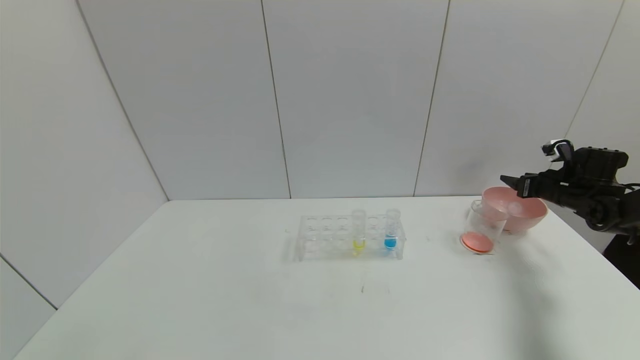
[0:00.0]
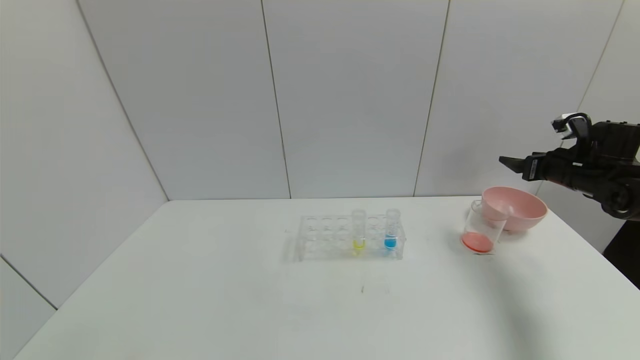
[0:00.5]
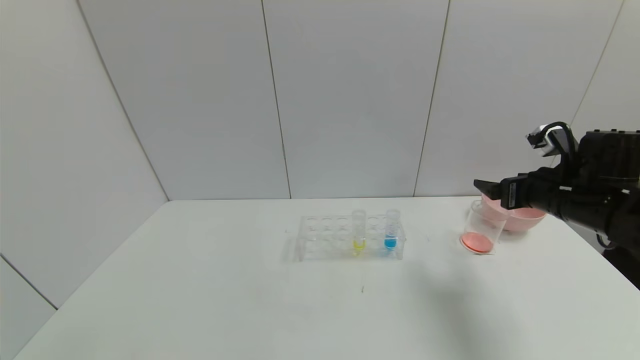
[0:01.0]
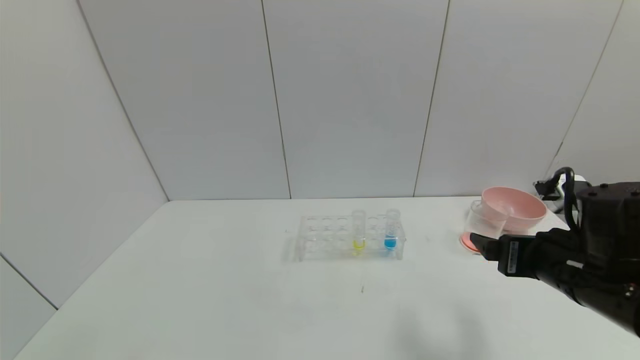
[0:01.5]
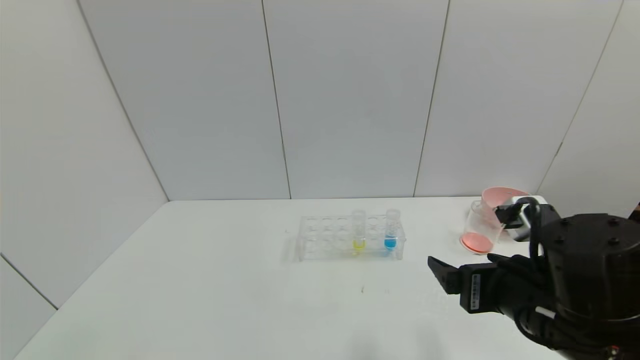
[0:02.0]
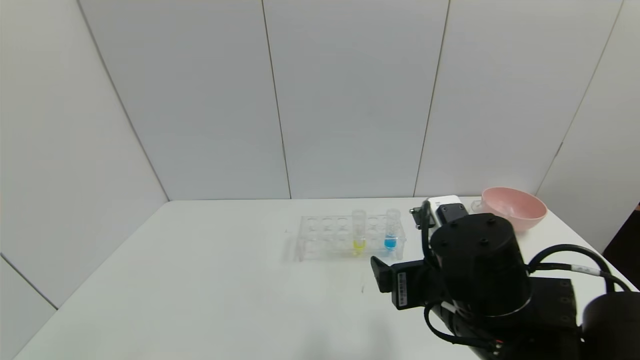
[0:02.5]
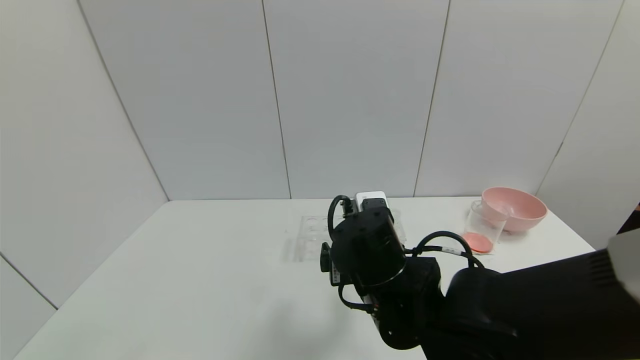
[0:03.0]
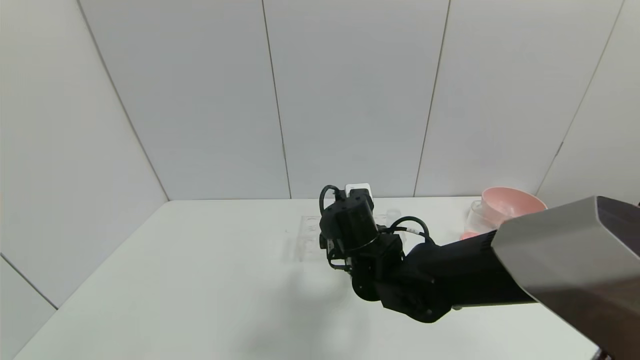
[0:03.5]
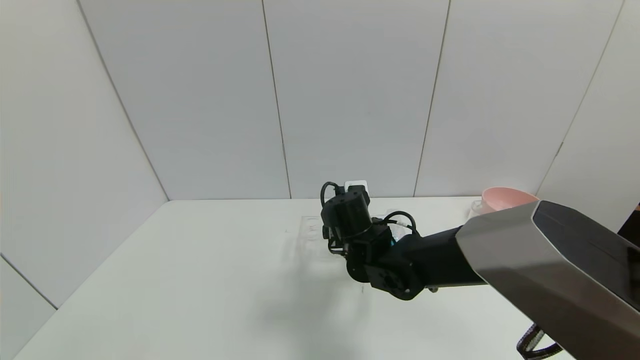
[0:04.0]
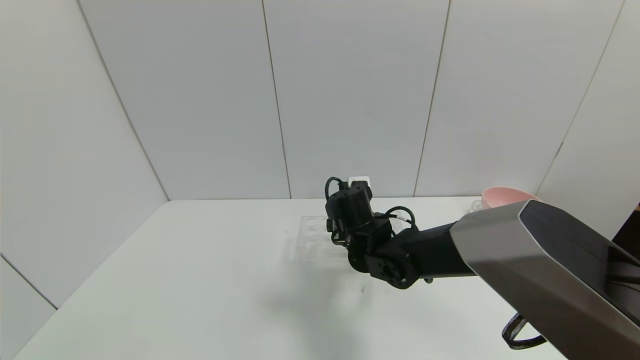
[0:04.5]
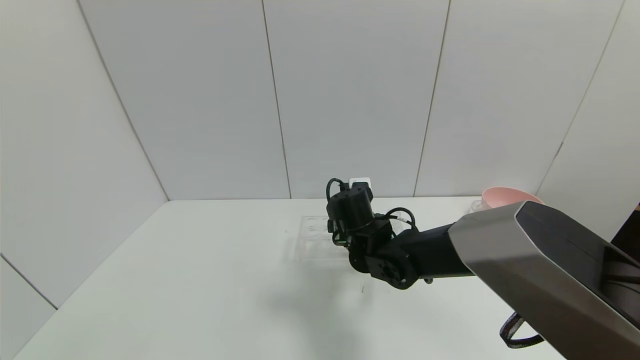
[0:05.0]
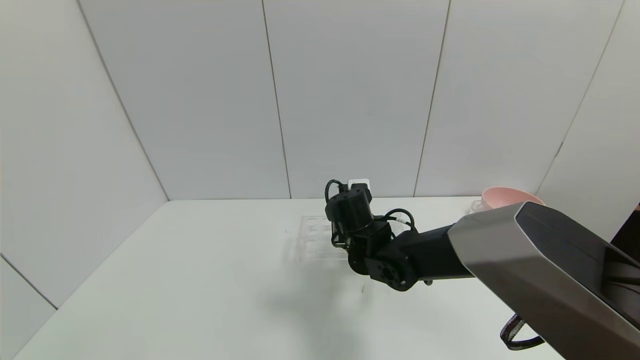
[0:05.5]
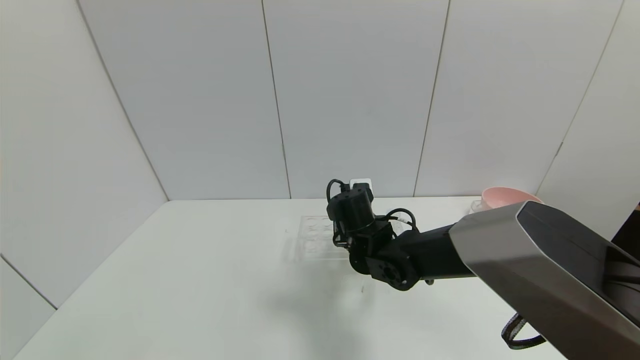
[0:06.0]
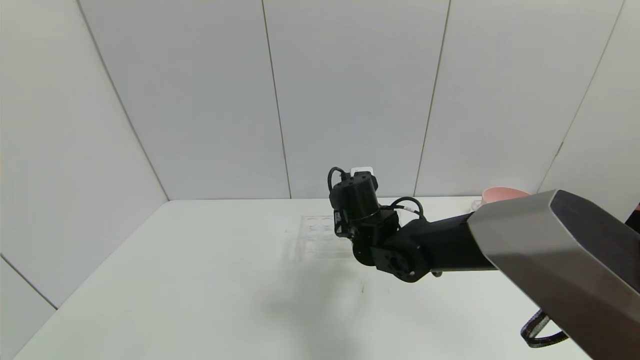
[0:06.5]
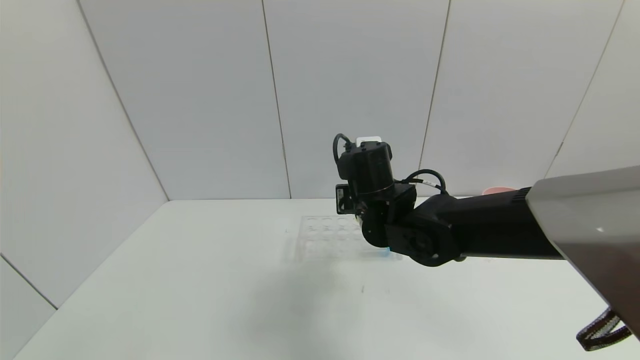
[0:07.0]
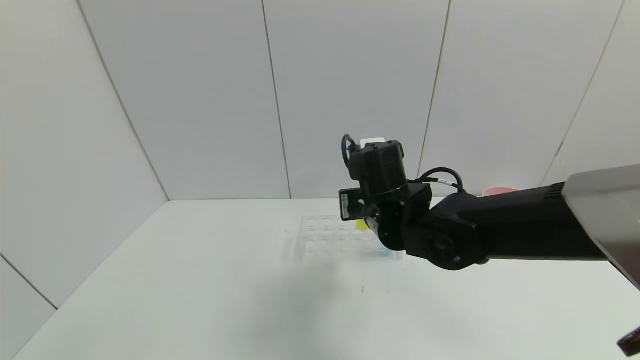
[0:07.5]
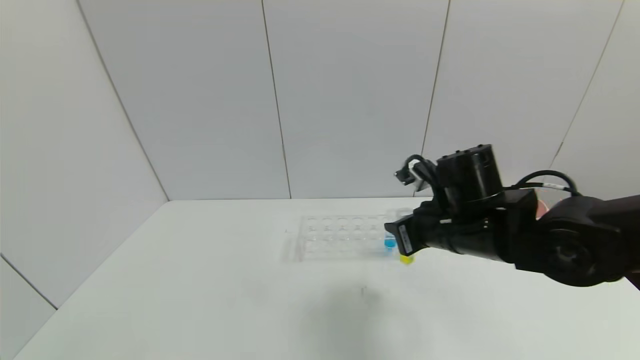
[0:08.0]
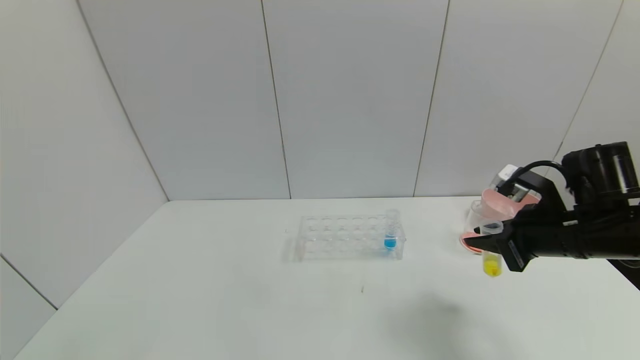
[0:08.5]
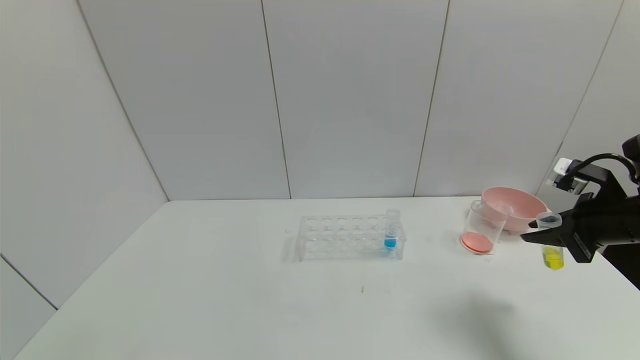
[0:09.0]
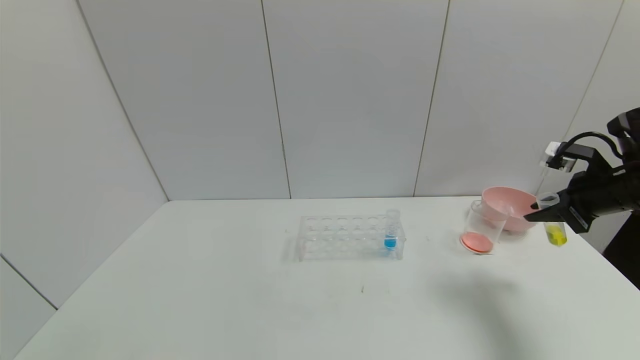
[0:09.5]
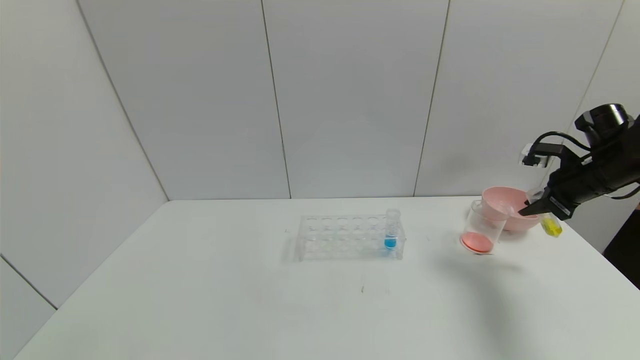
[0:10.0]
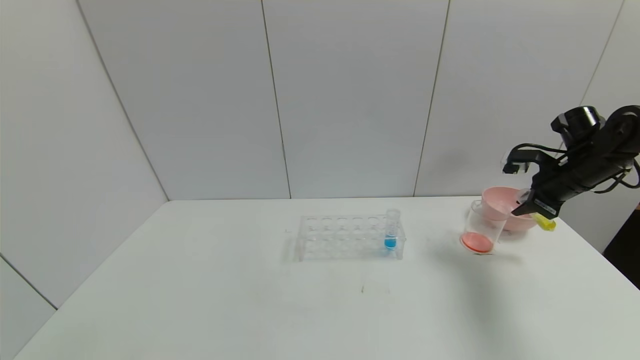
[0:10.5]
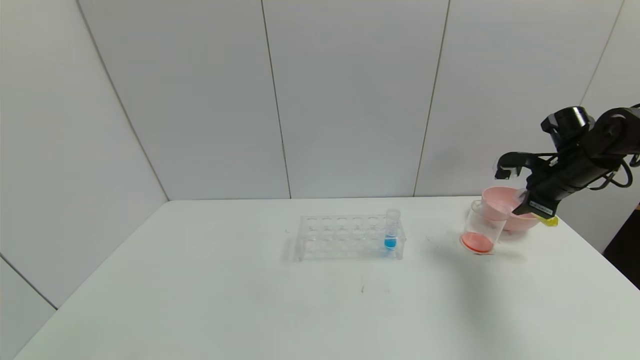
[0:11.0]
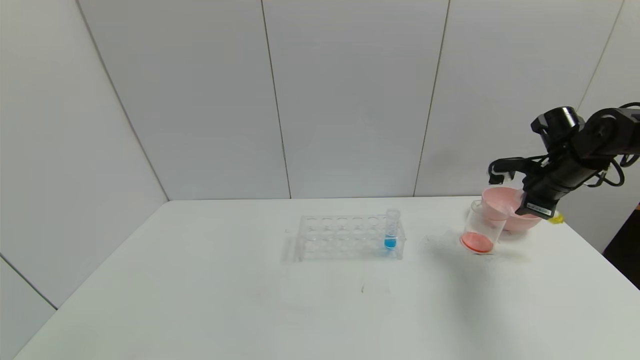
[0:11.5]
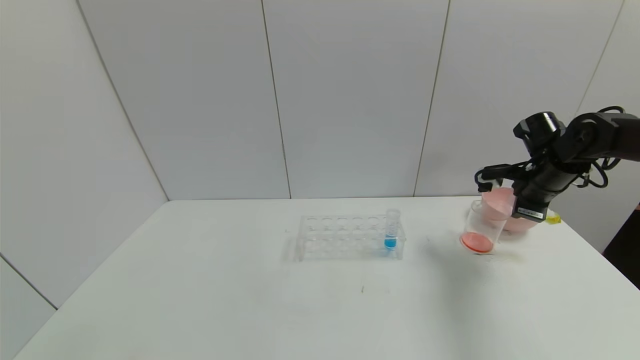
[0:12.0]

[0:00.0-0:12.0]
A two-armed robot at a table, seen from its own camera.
Task of the whole recording: pick up the test tube with yellow pigment and the test tube with red pigment by grippers and pour them into the beaker.
Step, 0:00.5 to 0:06.0: Grasp the yellow reagent with the right gripper.
0:00.0 to 0:02.0: The right gripper is displaced to the left and backward by roughly 40 cm, and opens up.
0:02.0 to 0:04.0: The right gripper heads forward, to the left and downward, covering about 25 cm.
0:04.0 to 0:06.0: The right gripper closes.
0:06.0 to 0:08.0: The right gripper is displaced to the right, upward and backward by some 20 cm.
0:08.0 to 0:10.0: The right gripper shifts roughly 25 cm to the right.
0:10.0 to 0:12.0: The right gripper goes about 5 cm to the left.

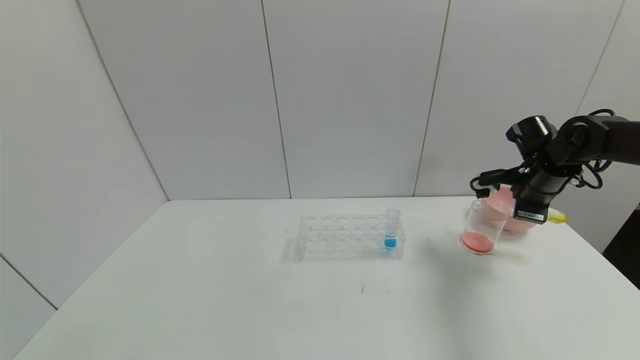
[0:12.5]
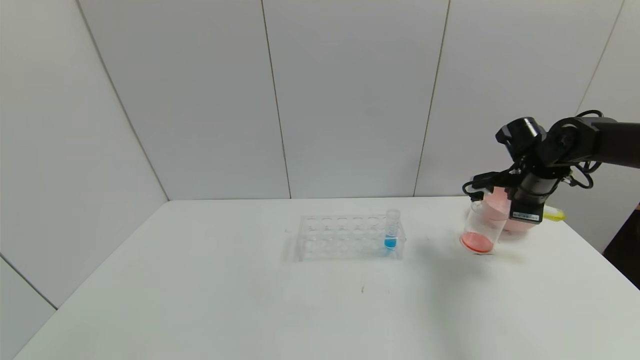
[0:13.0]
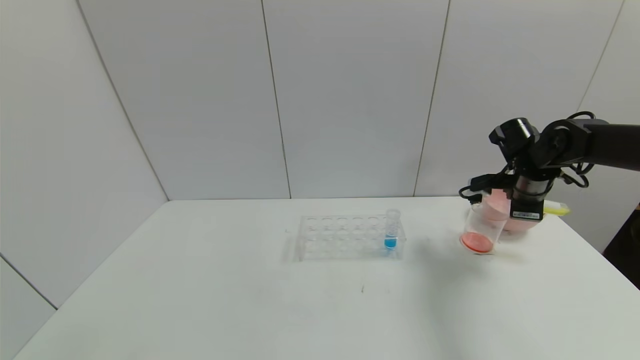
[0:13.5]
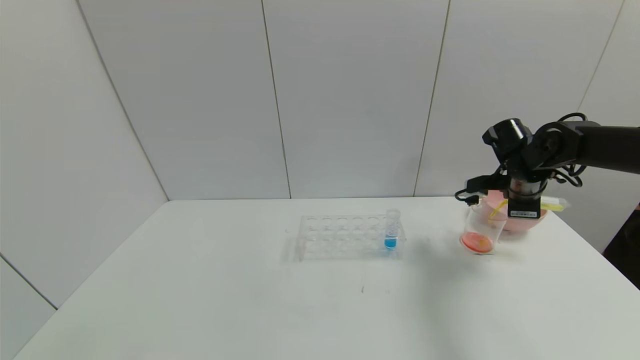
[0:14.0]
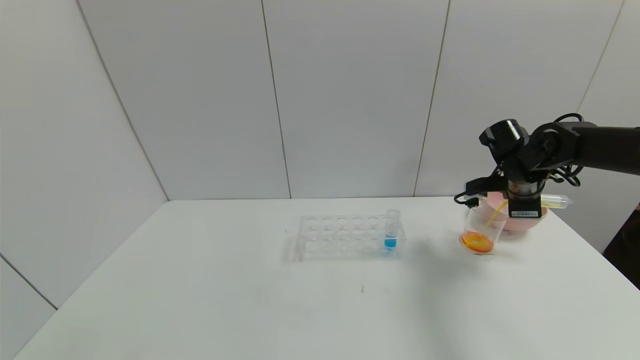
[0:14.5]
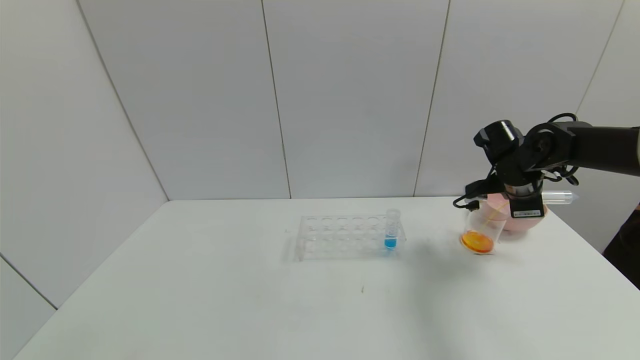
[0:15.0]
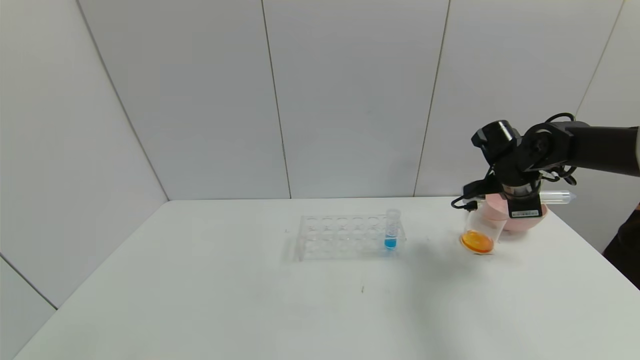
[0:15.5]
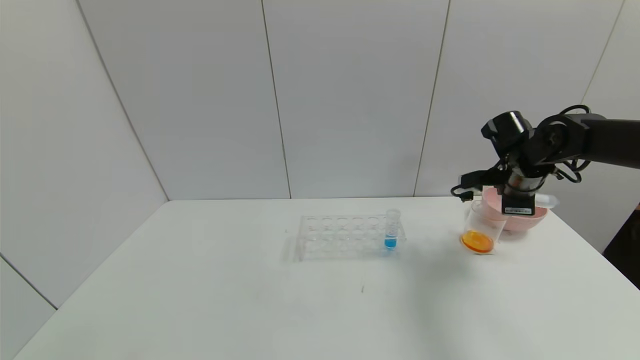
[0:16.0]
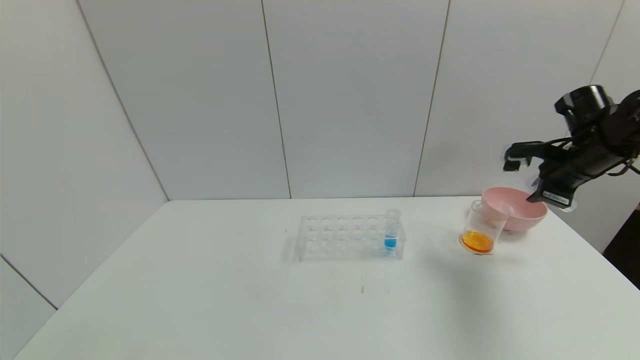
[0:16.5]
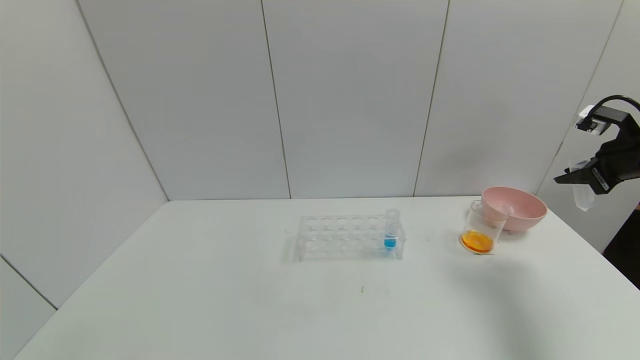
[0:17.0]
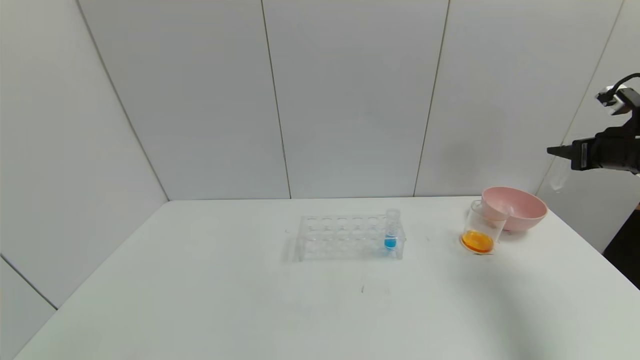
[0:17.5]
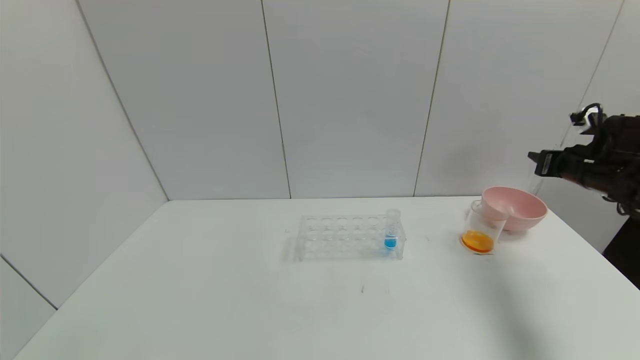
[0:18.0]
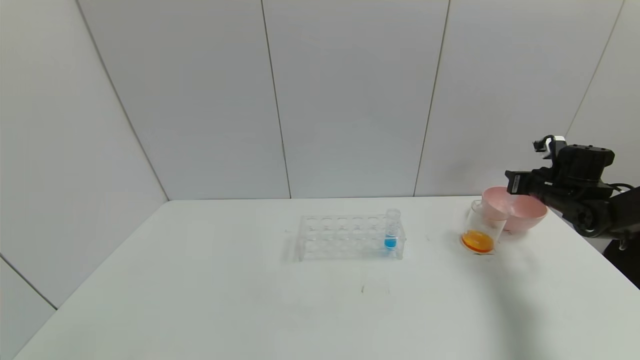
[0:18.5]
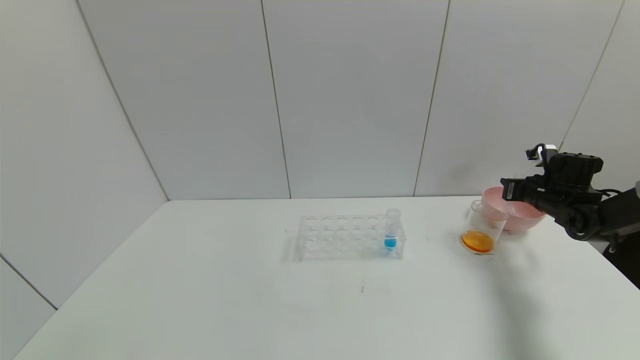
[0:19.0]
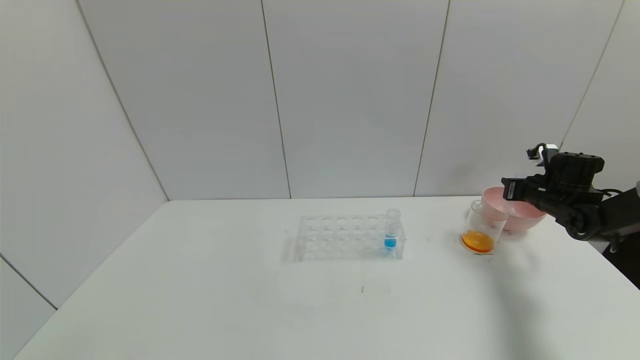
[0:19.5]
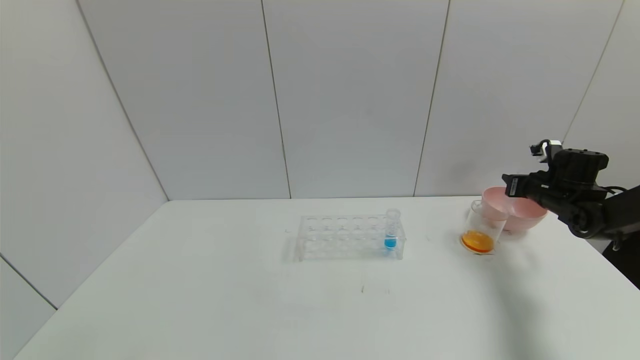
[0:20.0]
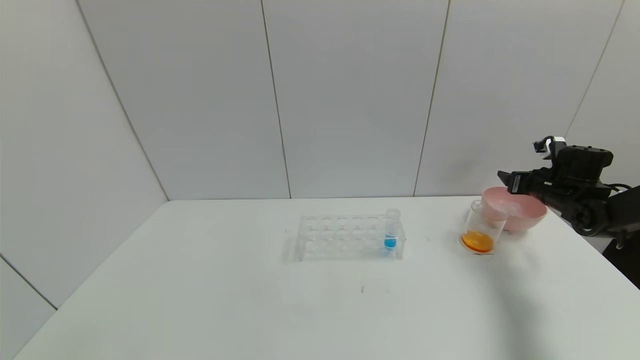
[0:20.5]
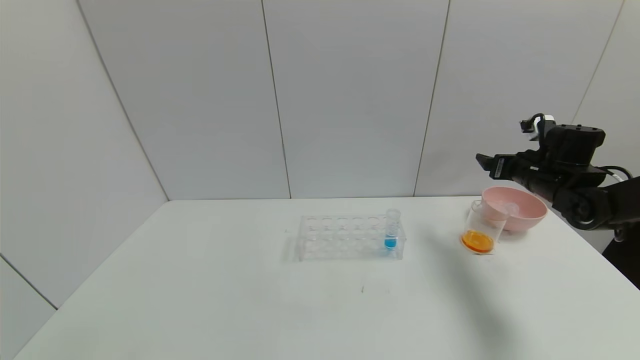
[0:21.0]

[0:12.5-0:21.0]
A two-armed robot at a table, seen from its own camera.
Task of the whole recording: pick up the test tube with yellow pigment and the test tube with red pigment by grippers and pour them into the beaker.
Step, 0:12.5 to 0:15.5: Pour the yellow reagent into the graduated cylinder with the right gripper.
Step, 0:16.0 to 0:20.0: Place the test tube into the bowl with the right gripper.
0:12.5 to 0:14.5: The grippers stay close to where they were, moving slightly.
0:14.5 to 0:16.5: The right gripper is displaced to the right and upward by some 10 cm.
0:16.5 to 0:19.0: The right gripper is displaced downward and forward by roughly 15 cm.
0:19.0 to 0:21.0: The right gripper heads to the left and upward, covering about 10 cm, and opens.
